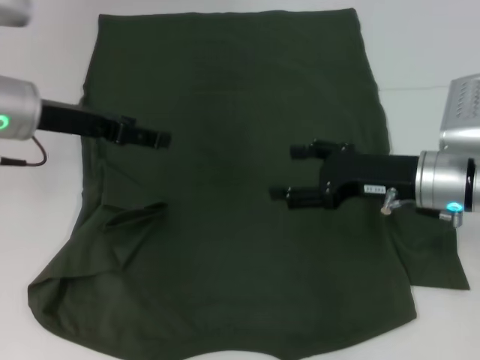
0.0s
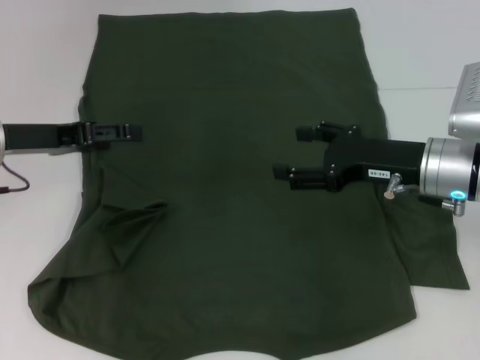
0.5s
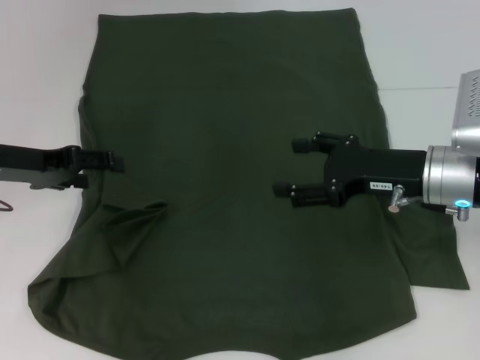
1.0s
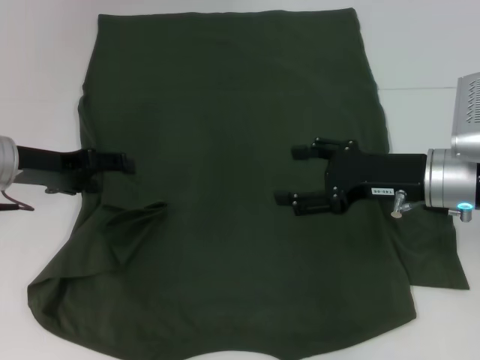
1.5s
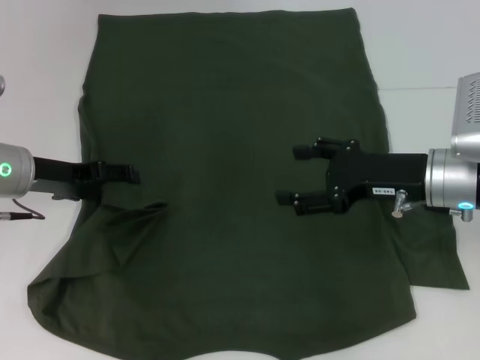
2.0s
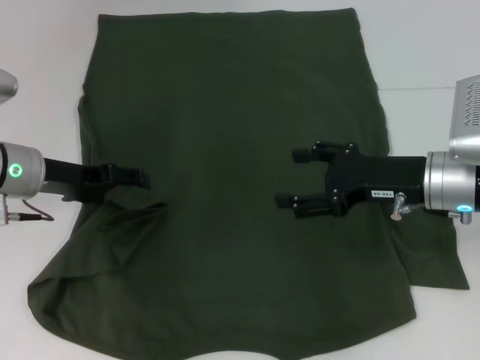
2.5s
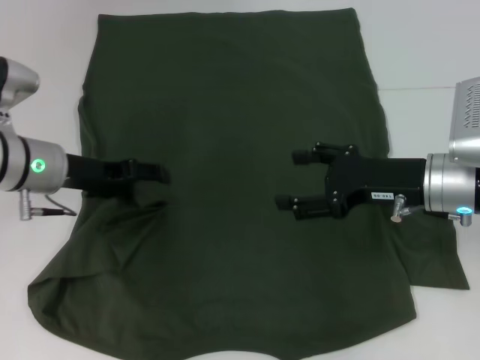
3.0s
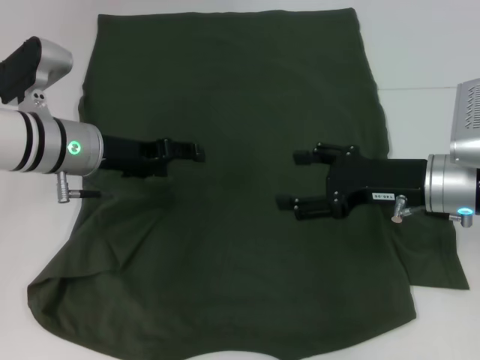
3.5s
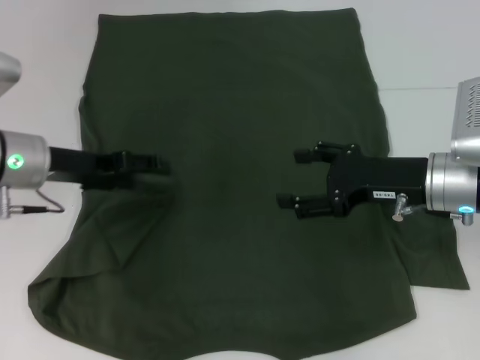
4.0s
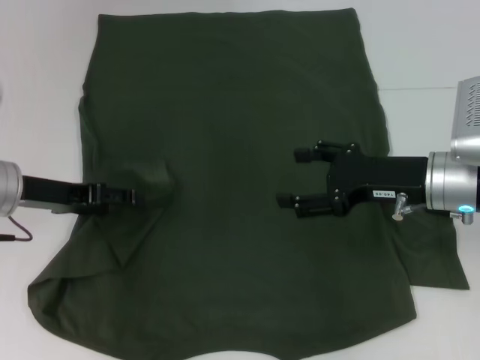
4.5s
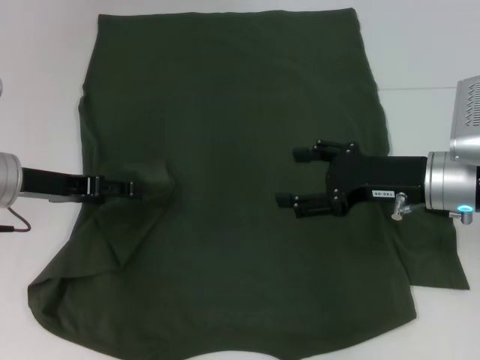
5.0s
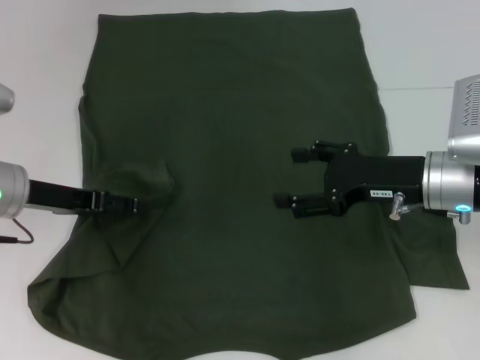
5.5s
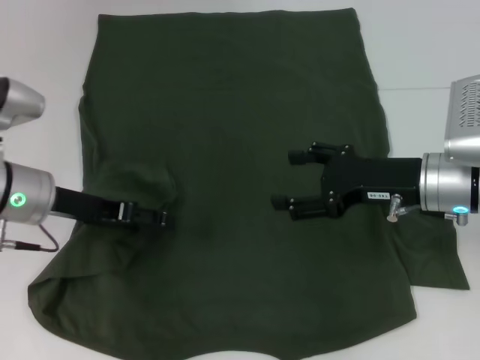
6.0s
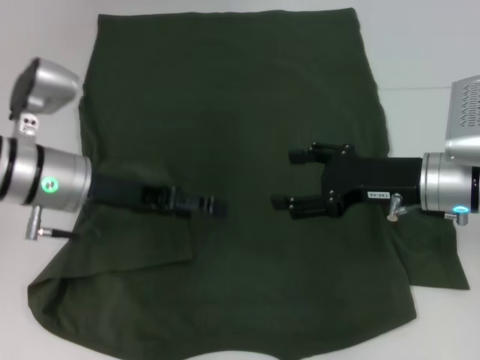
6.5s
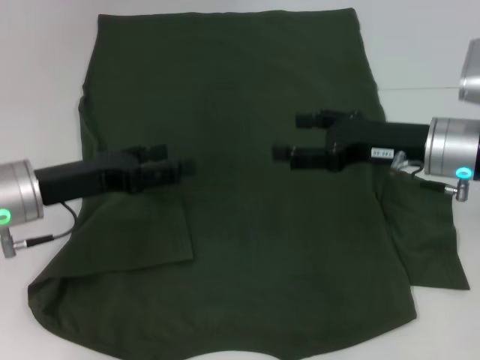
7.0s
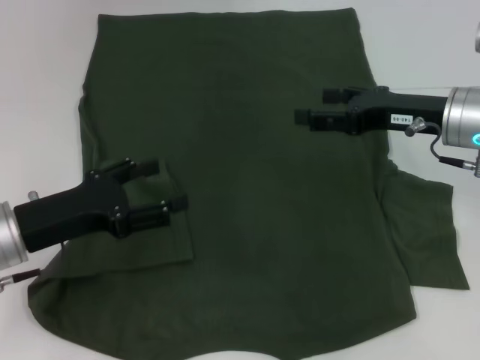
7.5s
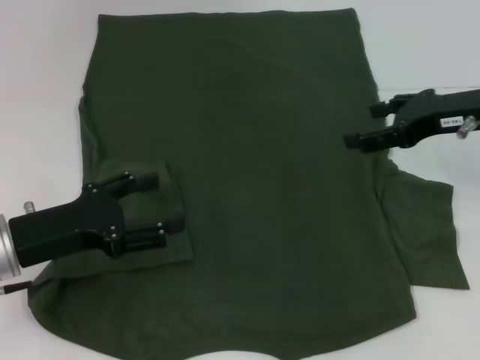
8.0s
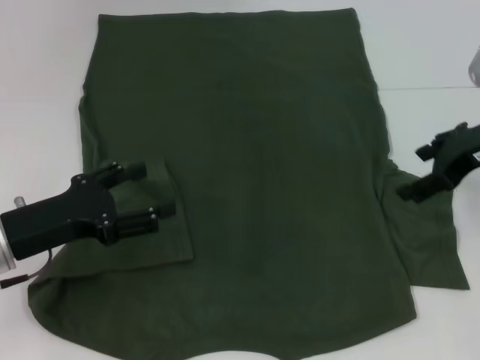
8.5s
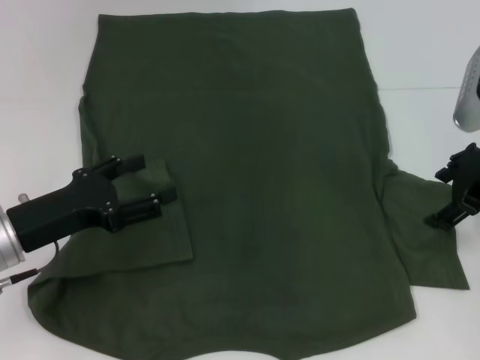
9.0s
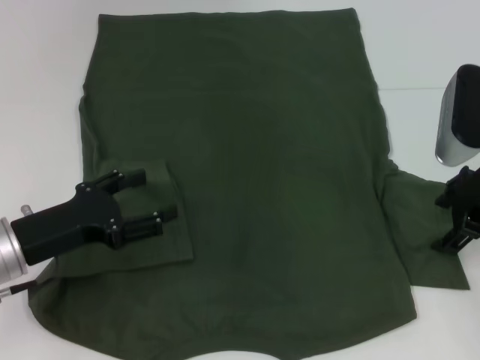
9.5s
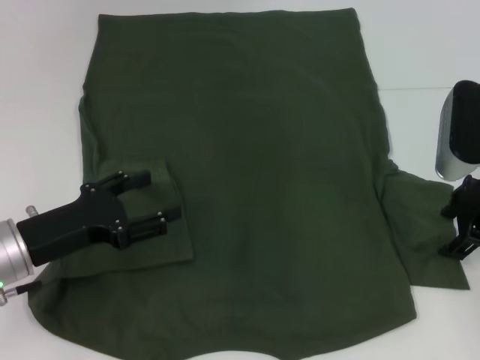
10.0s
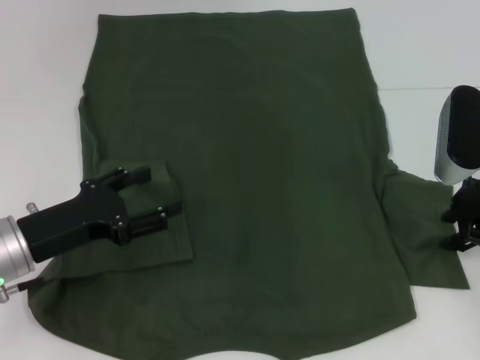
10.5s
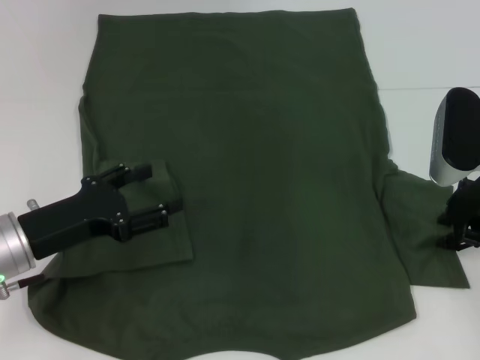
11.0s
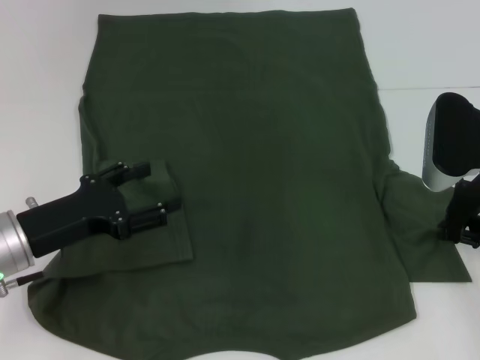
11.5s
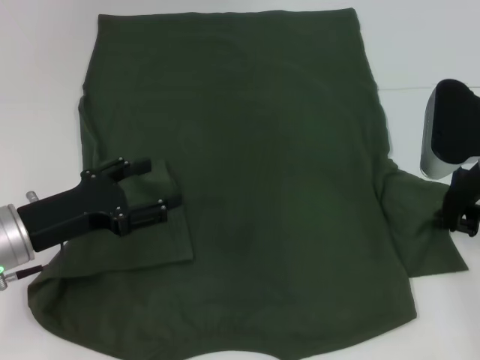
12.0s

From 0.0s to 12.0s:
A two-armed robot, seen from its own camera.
Step, from 0.0s to 6.5s: Fold the bottom left sleeve with your left hand.
From 0.0s to 2.0s: The left gripper goes approximately 5 cm downward.
From 4.0s to 6.0s: The grippers stay close to where they were, moving slightly.
From 6.0s to 8.0s: The right gripper heads upward and to the right, covering about 10 cm. Meanwhile the left gripper travels backward by approximately 10 cm.
From 10.0s to 12.0s: The right gripper closes up.

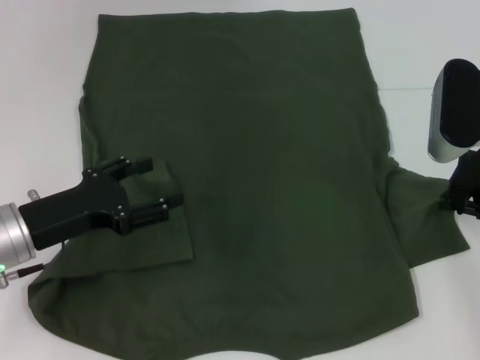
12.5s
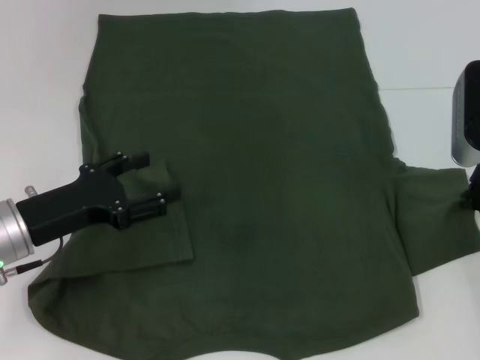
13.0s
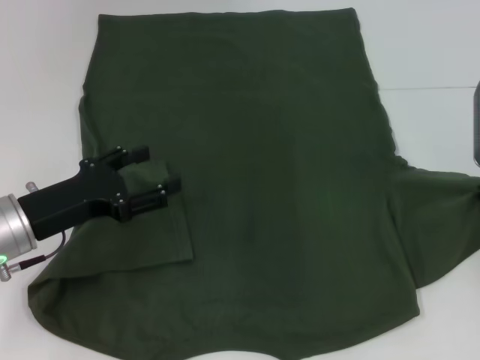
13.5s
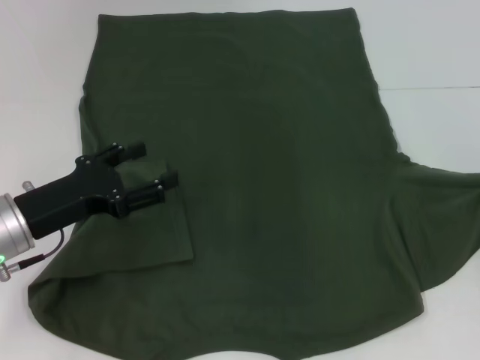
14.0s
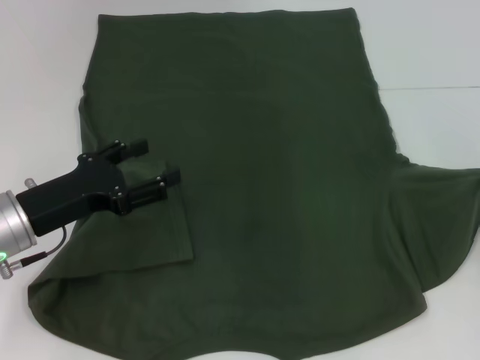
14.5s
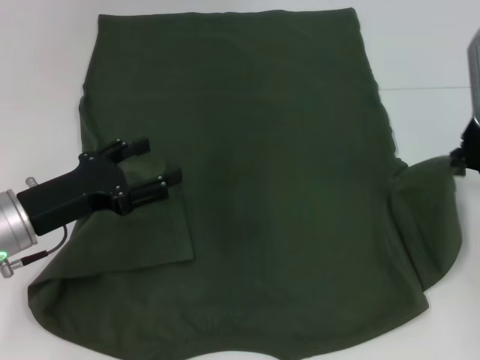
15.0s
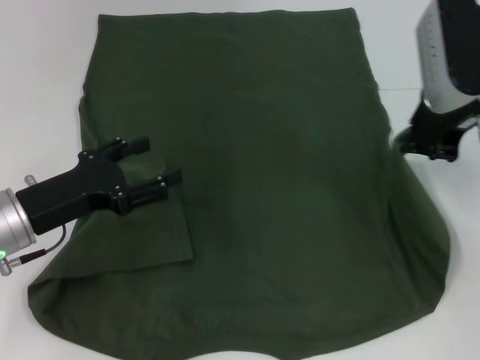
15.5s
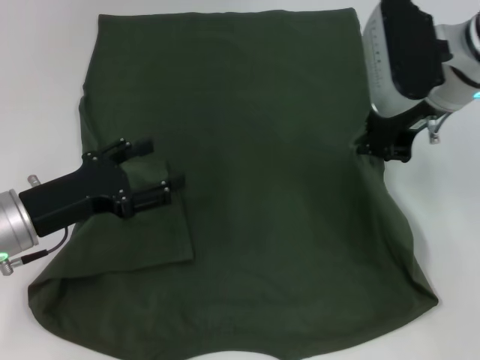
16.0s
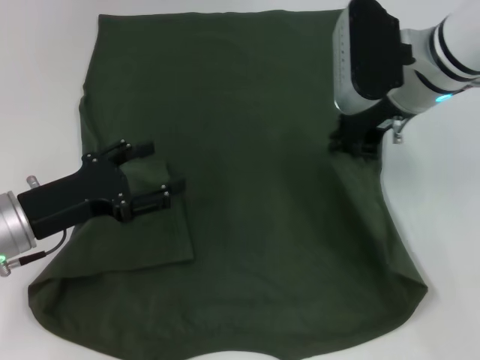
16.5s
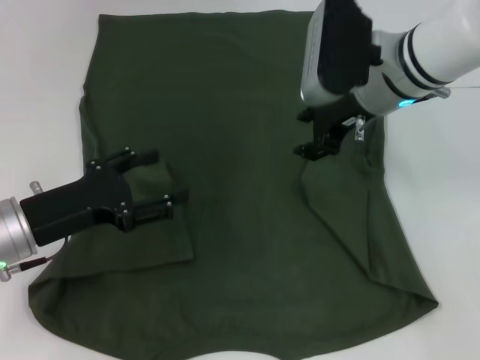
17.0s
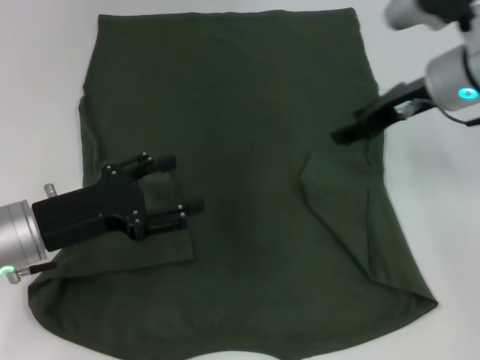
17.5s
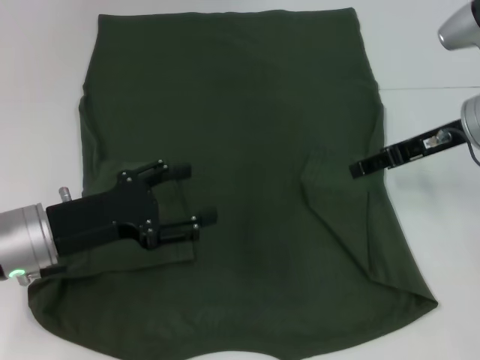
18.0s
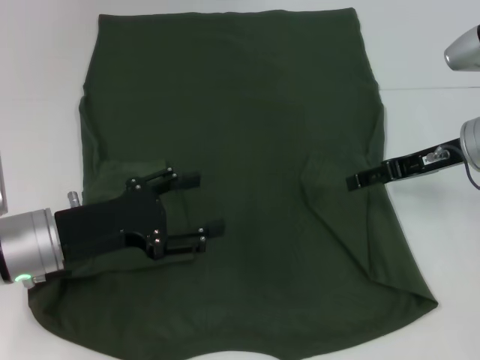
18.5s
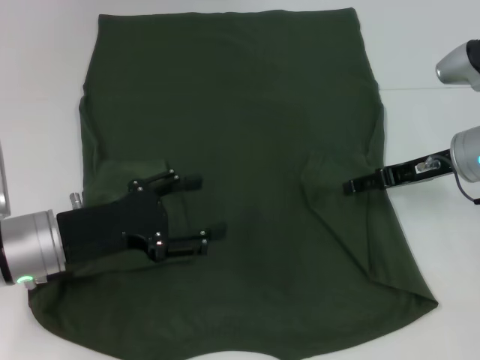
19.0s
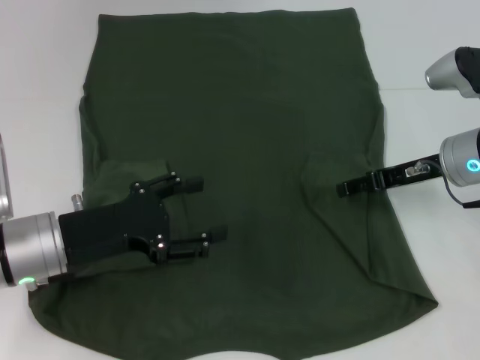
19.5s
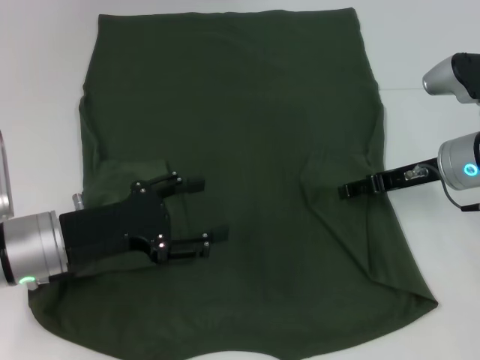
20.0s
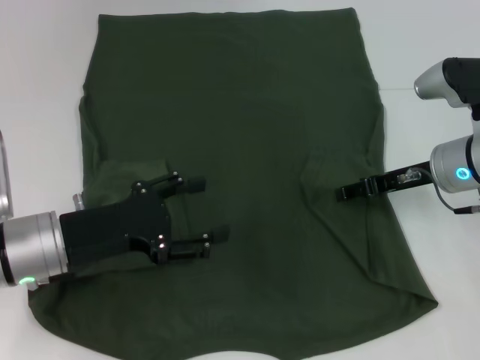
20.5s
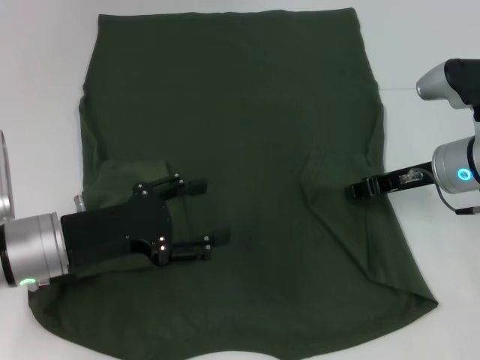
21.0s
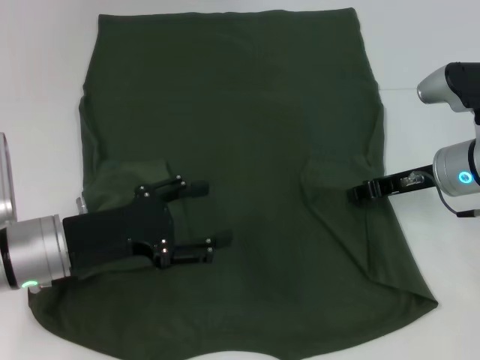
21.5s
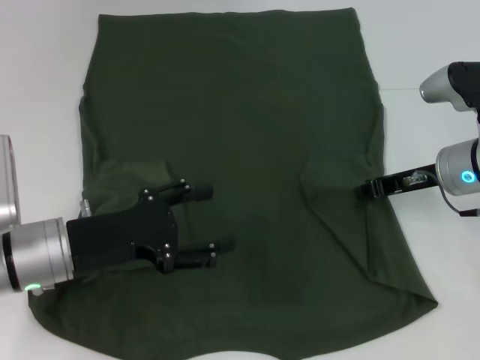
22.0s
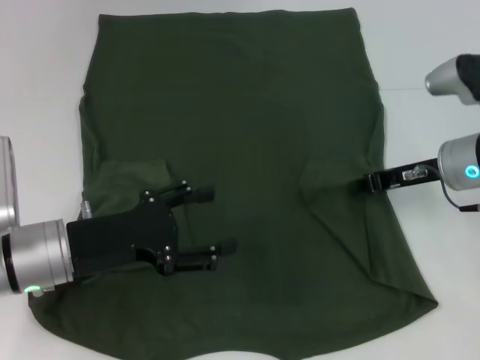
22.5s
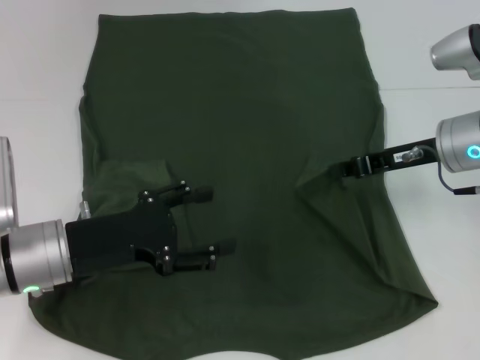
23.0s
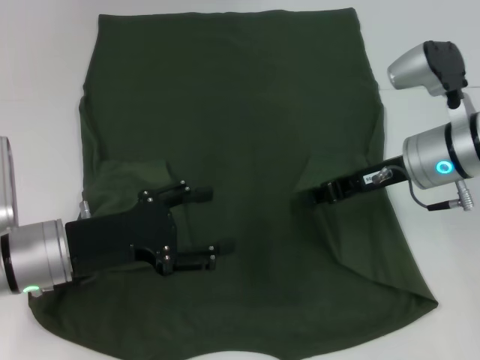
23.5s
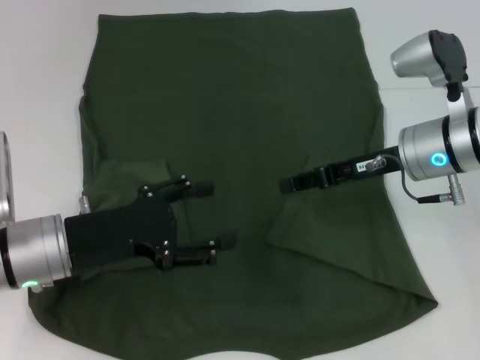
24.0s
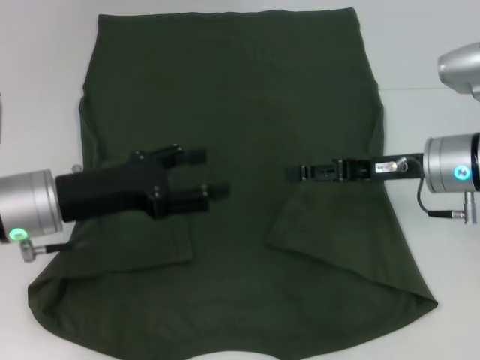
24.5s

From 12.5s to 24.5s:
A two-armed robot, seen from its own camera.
Step, from 12.5s to 24.0s: Fold the bottom right sleeve with your right hand.
From 12.5s to 14.5s: The right gripper shifts by approximately 5 cm.
From 14.5s to 16.5s: The right gripper moves to the left, about 15 cm.
From 16.5s to 18.5s: The right gripper travels to the right and downward by some 10 cm, and opens.
From 18.5s to 20.5s: There are only small adjustments of the grippers.
From 20.5s to 22.5s: The right gripper closes its fingers.
From 22.5s to 24.5s: The right gripper opens its fingers.

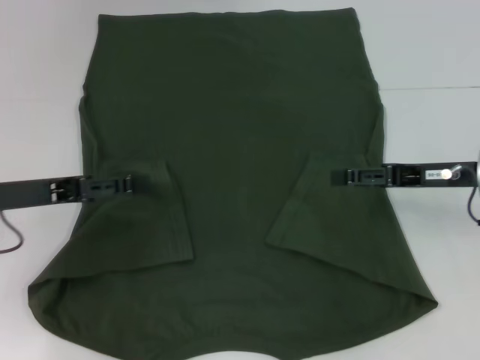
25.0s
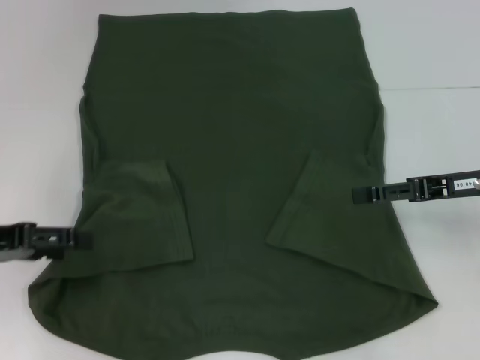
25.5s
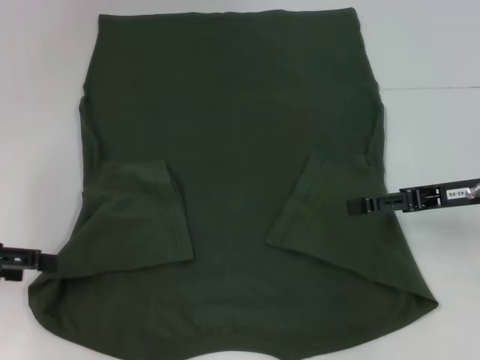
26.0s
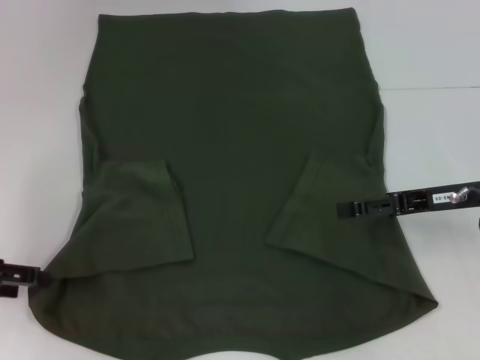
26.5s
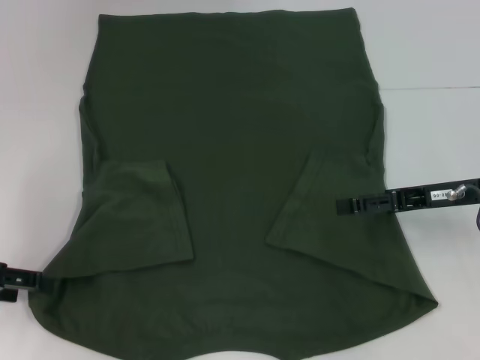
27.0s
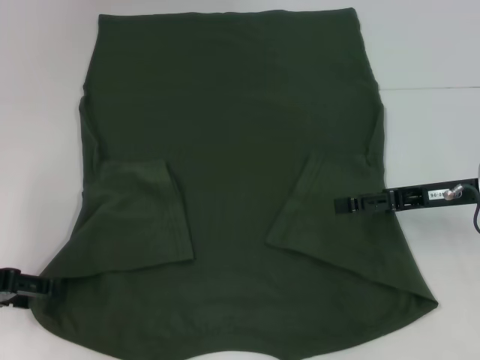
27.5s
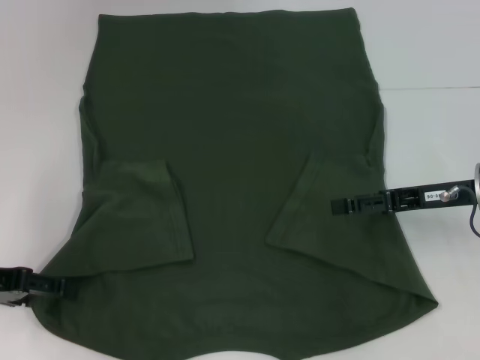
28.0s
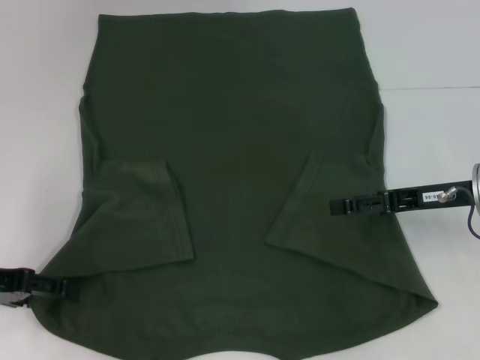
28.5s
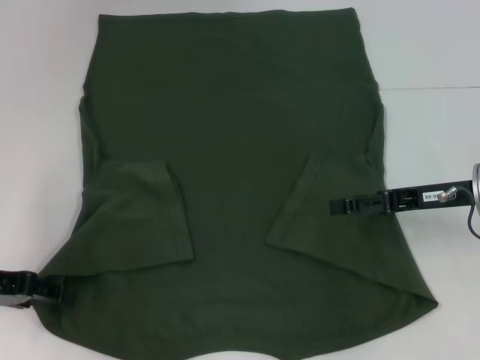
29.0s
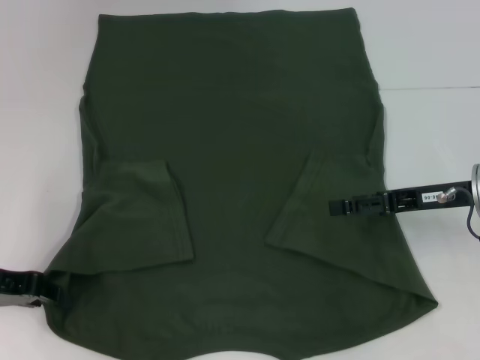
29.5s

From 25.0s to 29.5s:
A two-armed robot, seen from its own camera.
Step, from 25.0s to 29.0s: Grab the bottom left corner with your left hand.
From 25.0s to 27.0s: The left gripper travels to the left by about 5 cm.
From 27.0s to 29.5s: The left gripper closes.
